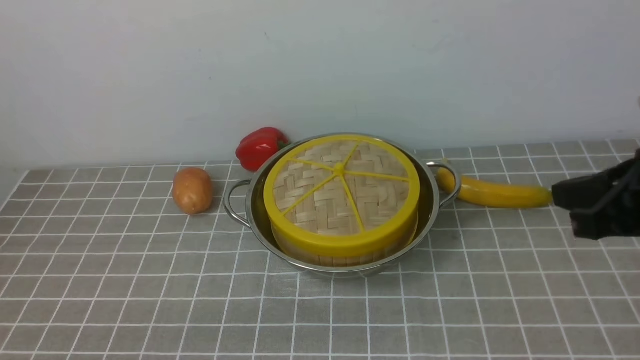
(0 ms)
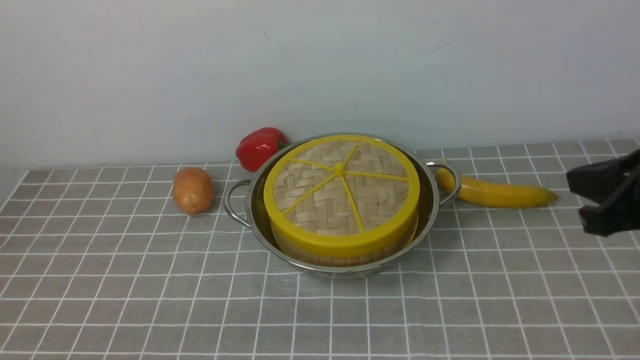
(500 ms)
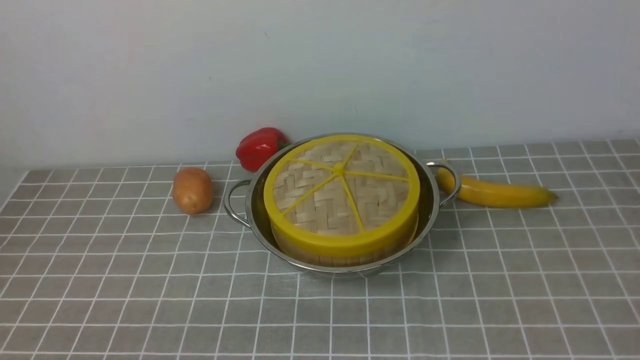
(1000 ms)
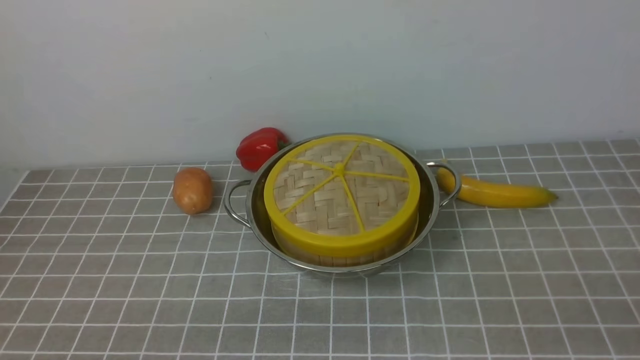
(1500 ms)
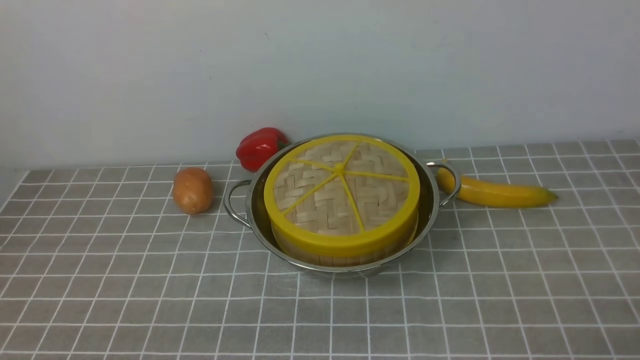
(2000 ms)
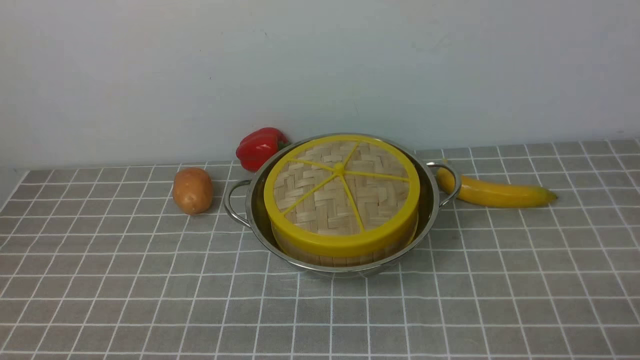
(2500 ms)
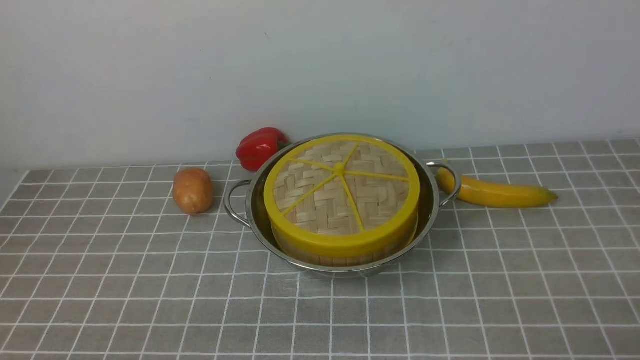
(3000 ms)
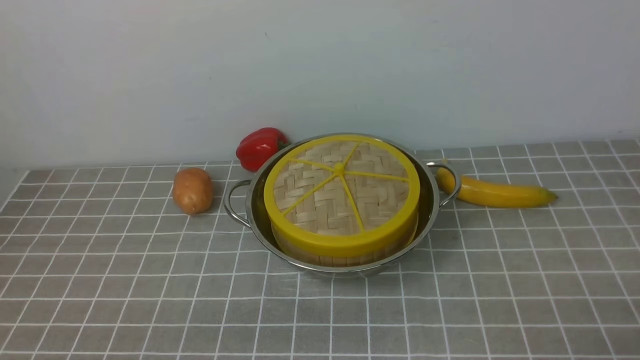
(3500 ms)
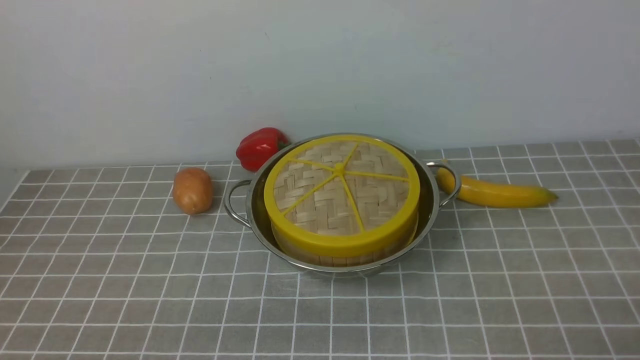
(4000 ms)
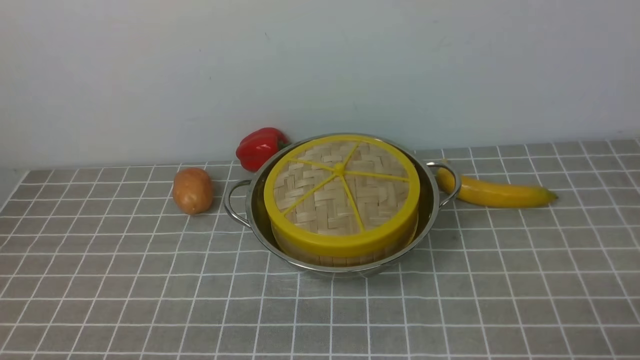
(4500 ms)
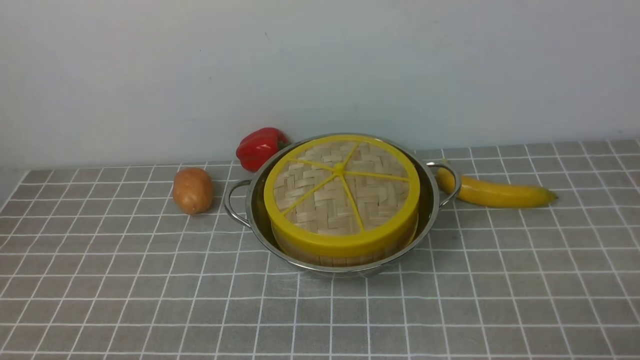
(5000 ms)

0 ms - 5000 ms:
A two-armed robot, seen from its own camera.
Task of the whole recording: place the steamer in the pot on the grey tablecloth, and put the lid on the steamer.
0 ms - 2500 ms: The right gripper heads backward and downward, covering some 20 cm.
2500 ms - 5000 ms: Both grippers stay put.
